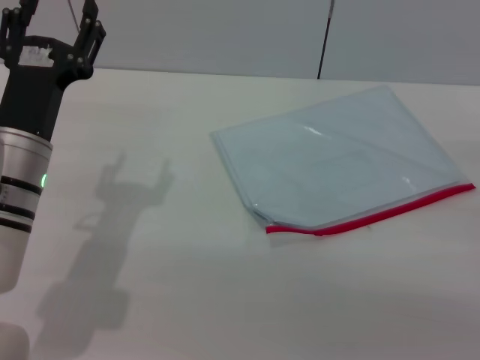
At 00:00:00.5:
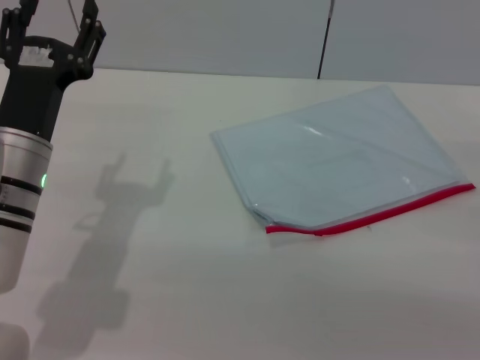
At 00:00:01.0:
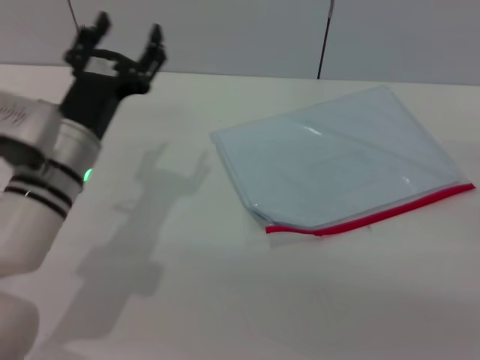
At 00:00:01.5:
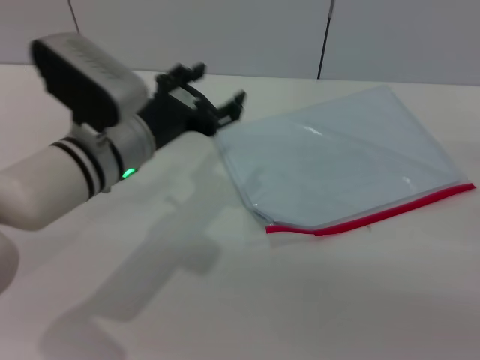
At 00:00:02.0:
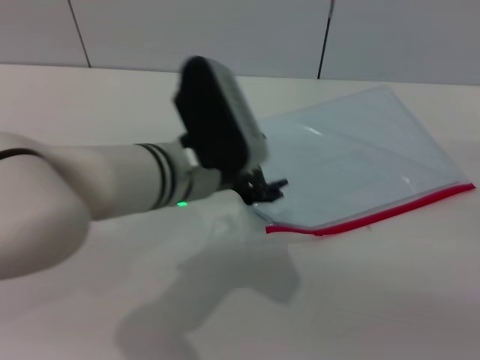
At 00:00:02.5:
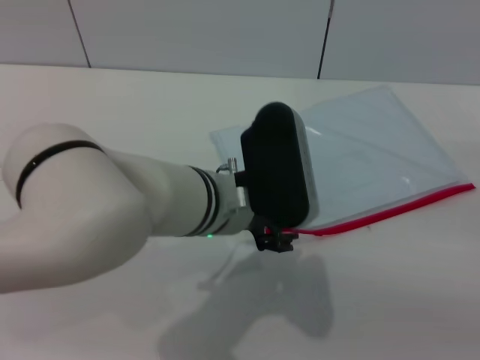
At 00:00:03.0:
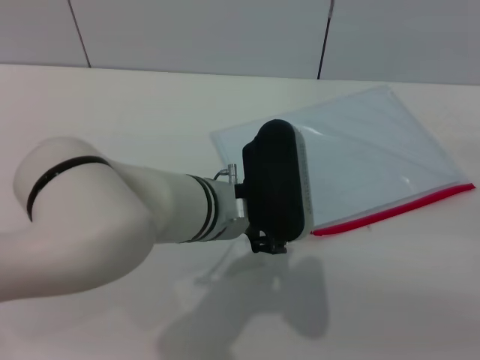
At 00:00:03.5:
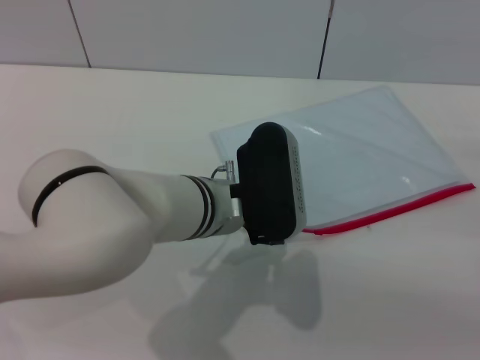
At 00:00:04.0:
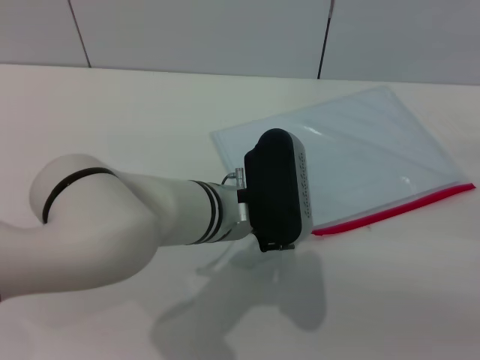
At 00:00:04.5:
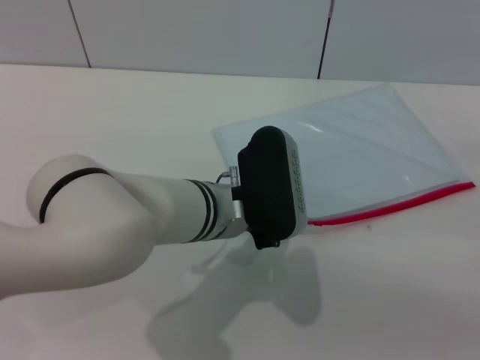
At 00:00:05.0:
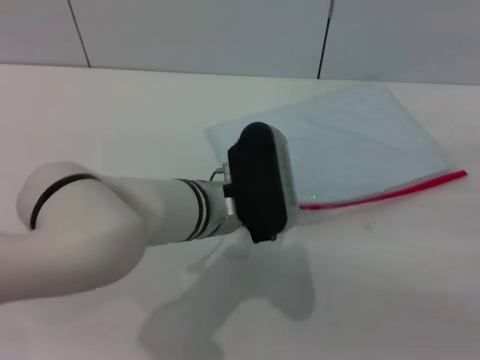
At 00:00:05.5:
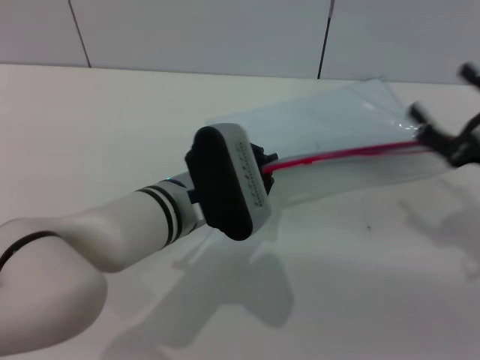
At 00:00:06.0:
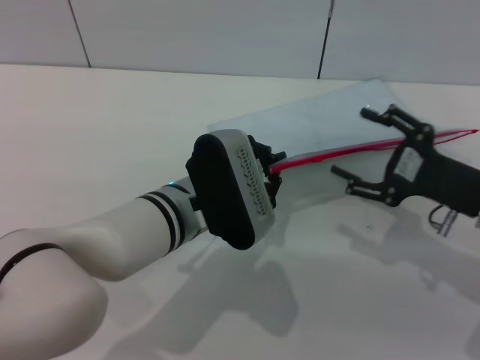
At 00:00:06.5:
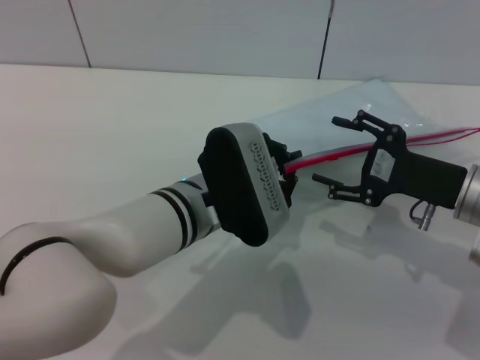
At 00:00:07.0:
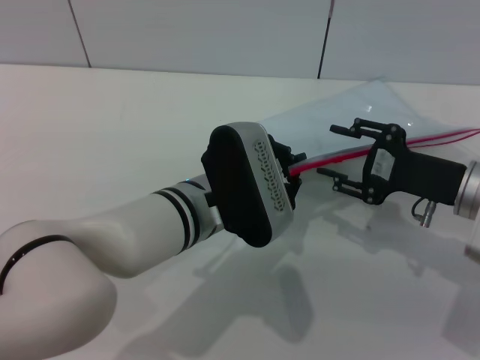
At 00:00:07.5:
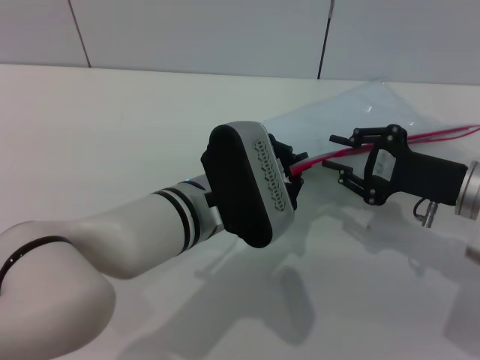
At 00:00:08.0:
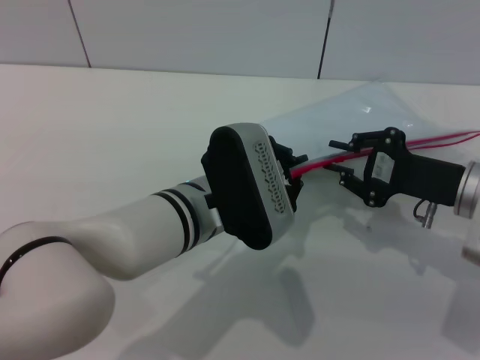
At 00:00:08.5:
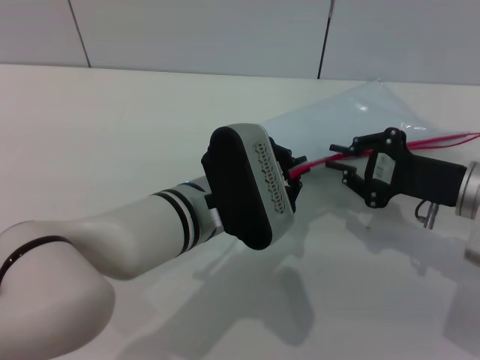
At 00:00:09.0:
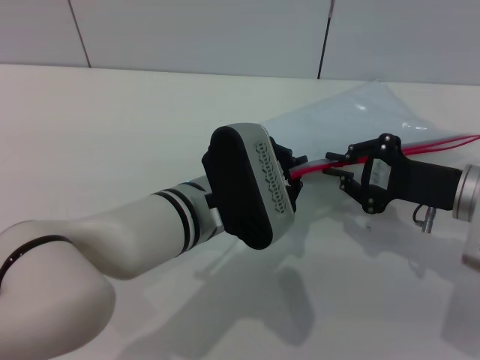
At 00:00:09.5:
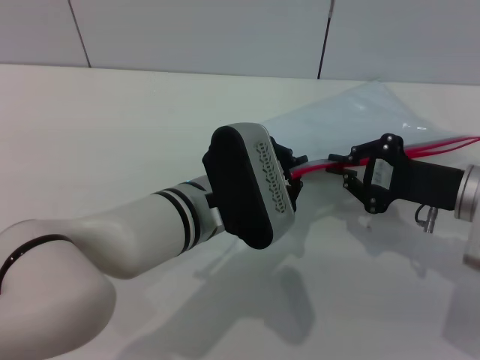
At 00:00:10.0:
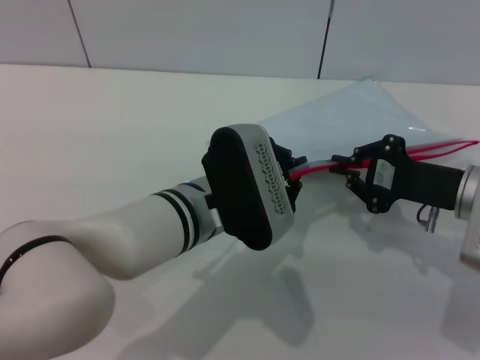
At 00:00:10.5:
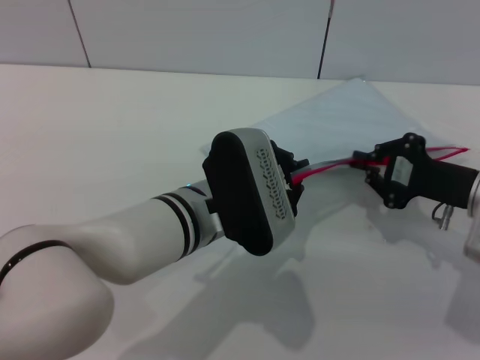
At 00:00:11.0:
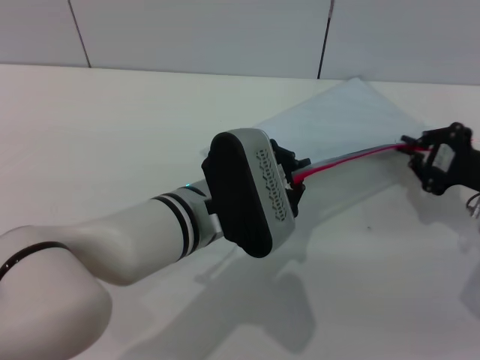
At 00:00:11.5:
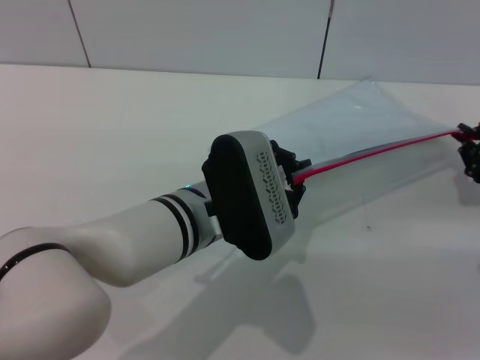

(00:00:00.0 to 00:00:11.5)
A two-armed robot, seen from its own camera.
Step, 00:00:00.0 - 00:00:06.0: Pick up the transparent plastic bag with the left gripper.
00:00:00.0 - 00:00:02.0: The left gripper travels to the right by approximately 15 cm.
00:00:02.0 - 00:00:04.0: The left gripper changes place by some 5 cm.
00:00:04.0 - 00:00:06.0: The left gripper closes up. The right gripper is displaced to the left by some 10 cm.
00:00:06.0 - 00:00:07.5: The right gripper closes.
00:00:07.5 - 00:00:09.5: The grippers make only small movements.
00:00:09.5 - 00:00:11.5: The right gripper heads to the right, covering roughly 10 cm.

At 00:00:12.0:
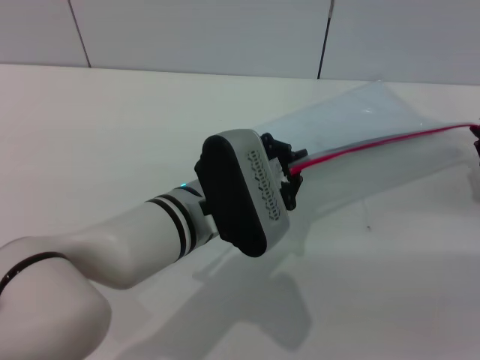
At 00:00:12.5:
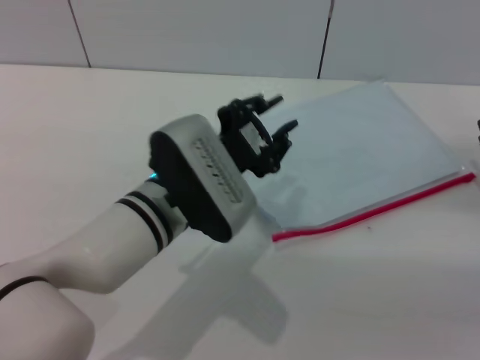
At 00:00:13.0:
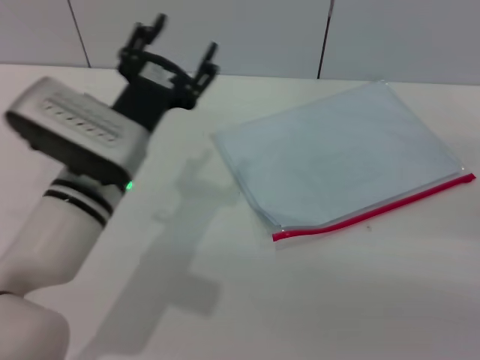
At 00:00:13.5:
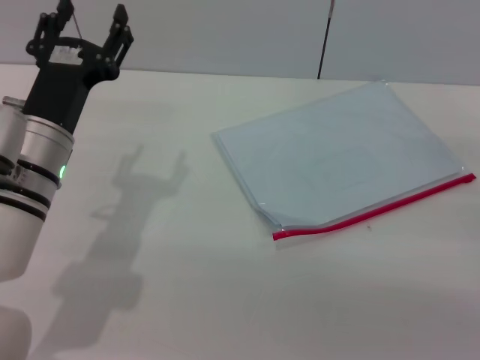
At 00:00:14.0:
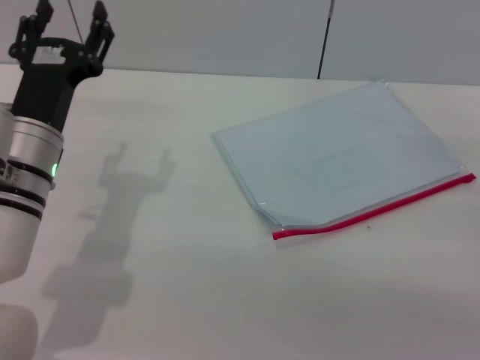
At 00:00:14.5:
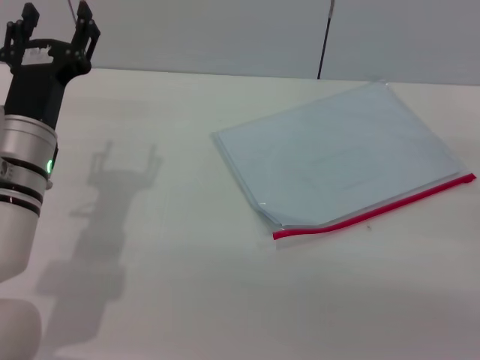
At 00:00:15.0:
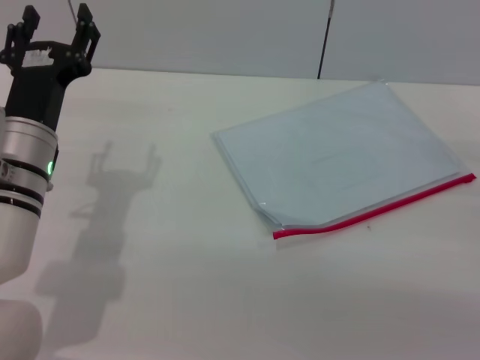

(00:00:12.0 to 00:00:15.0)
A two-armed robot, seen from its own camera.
Step, 00:00:12.5 - 00:00:13.0: Place the transparent plastic bag.
00:00:12.0 - 00:00:13.5: The left gripper goes approximately 15 cm to the left, and opens its fingers, while the right gripper heads backward, covering some 5 cm, and opens its fingers.
00:00:13.5 - 00:00:15.0: The grippers move only a little.

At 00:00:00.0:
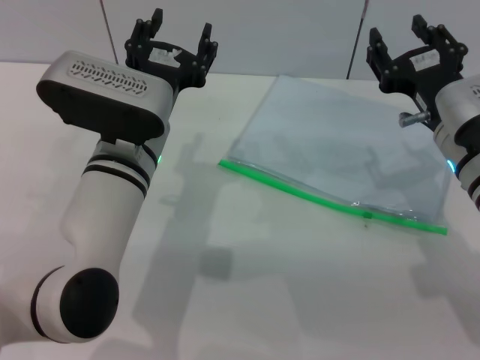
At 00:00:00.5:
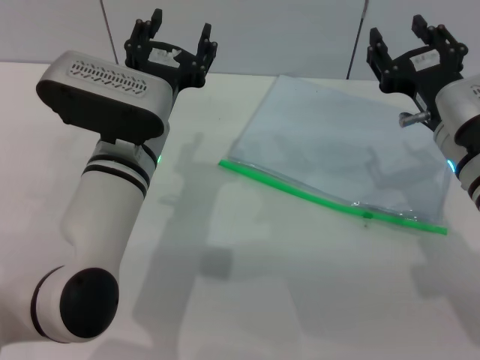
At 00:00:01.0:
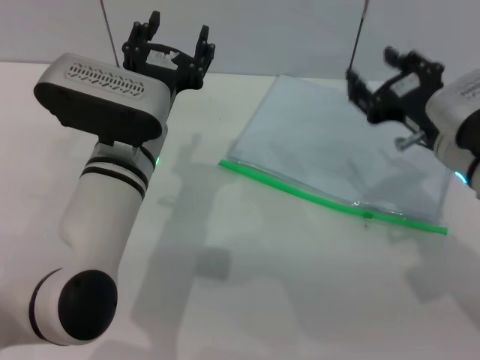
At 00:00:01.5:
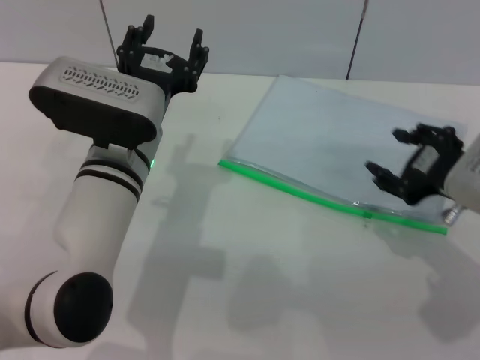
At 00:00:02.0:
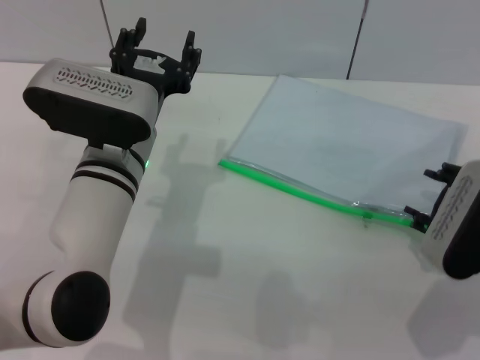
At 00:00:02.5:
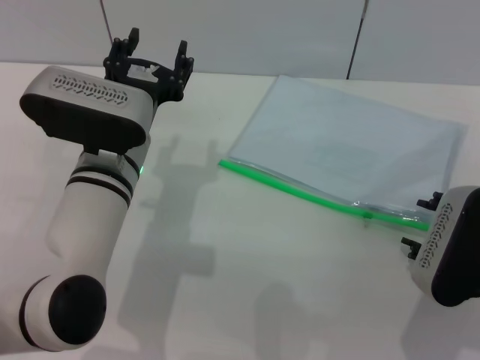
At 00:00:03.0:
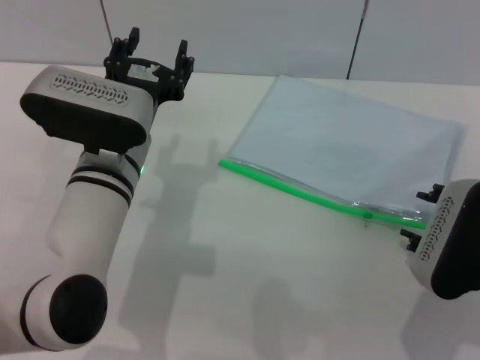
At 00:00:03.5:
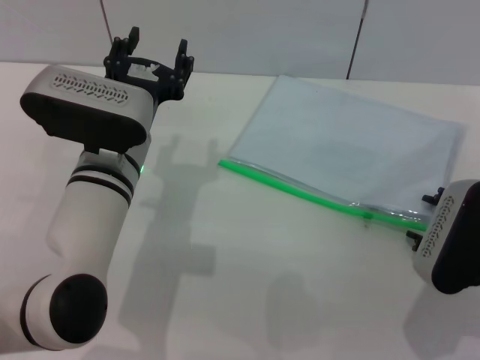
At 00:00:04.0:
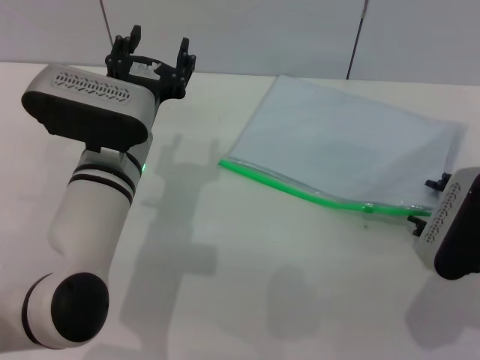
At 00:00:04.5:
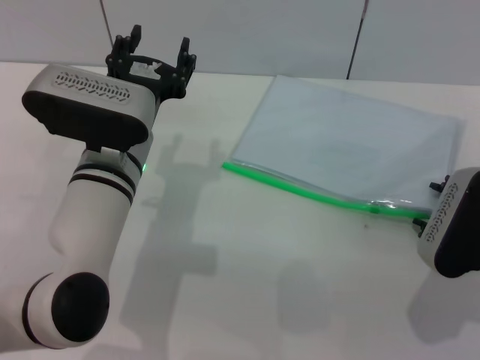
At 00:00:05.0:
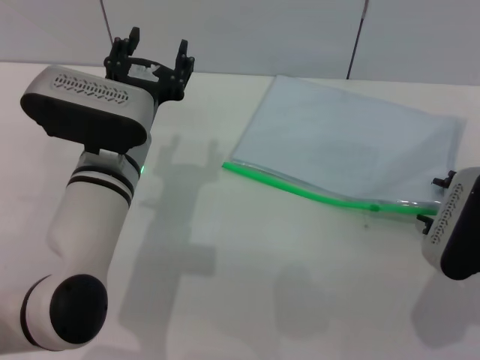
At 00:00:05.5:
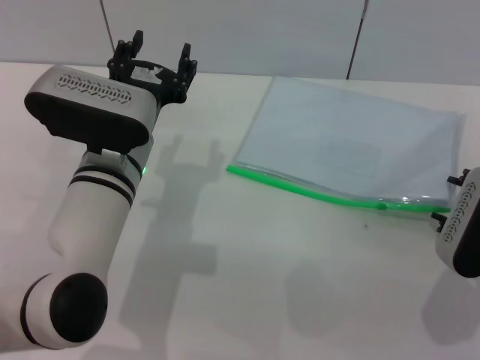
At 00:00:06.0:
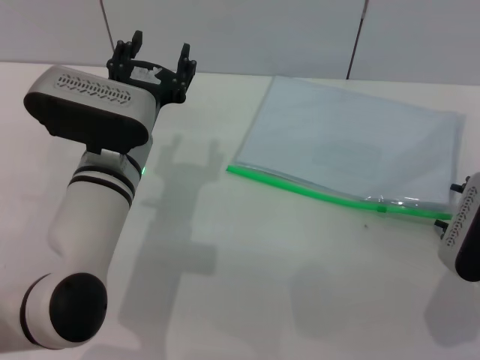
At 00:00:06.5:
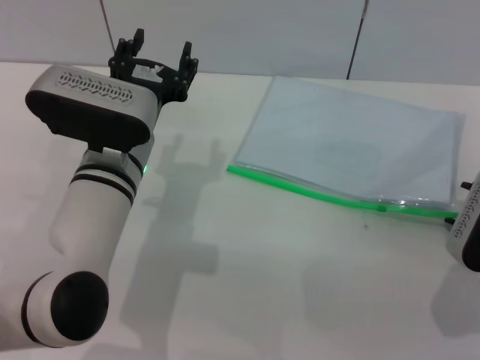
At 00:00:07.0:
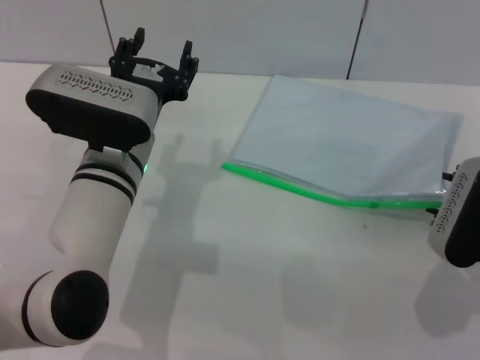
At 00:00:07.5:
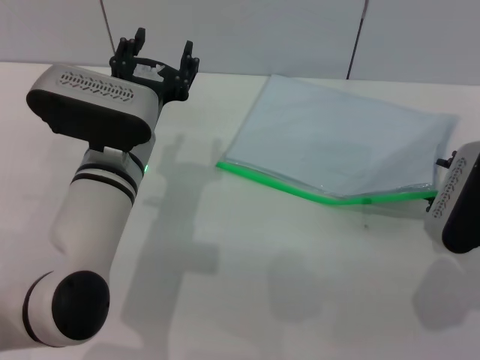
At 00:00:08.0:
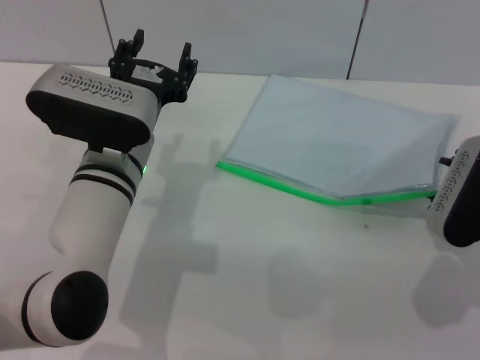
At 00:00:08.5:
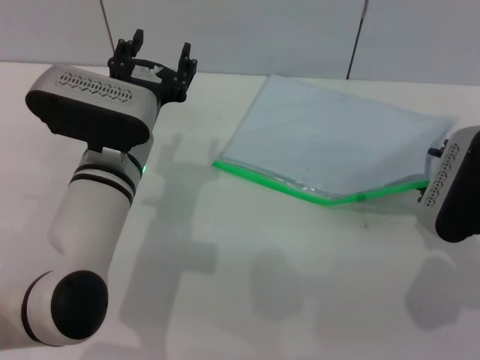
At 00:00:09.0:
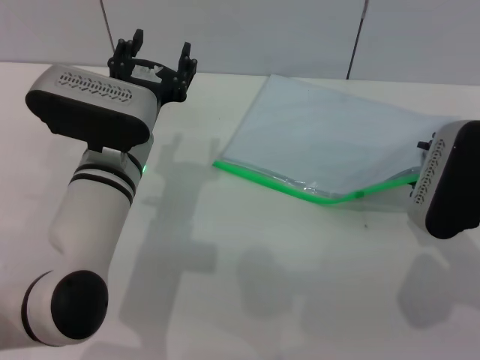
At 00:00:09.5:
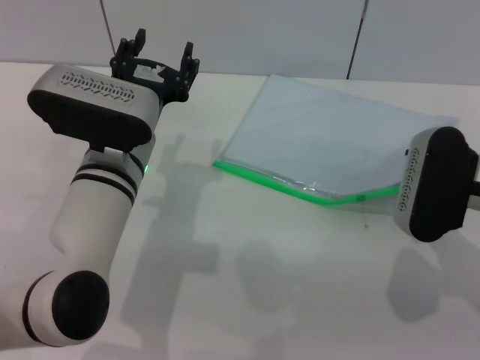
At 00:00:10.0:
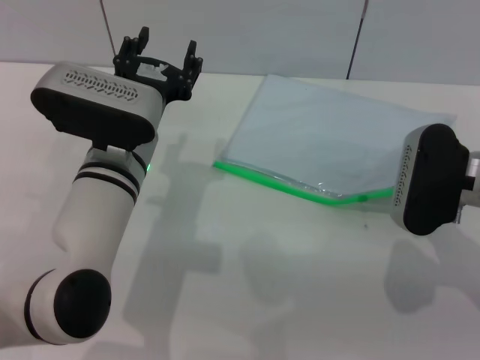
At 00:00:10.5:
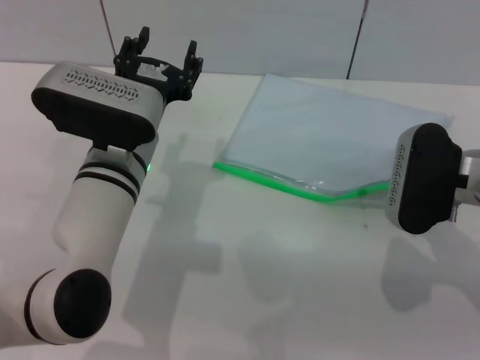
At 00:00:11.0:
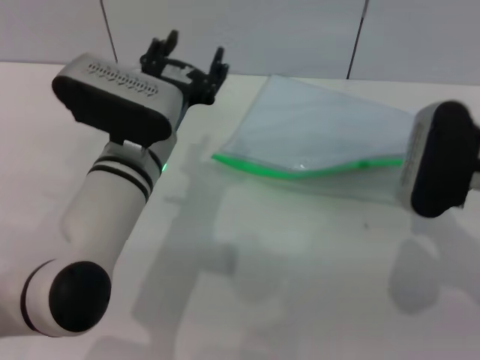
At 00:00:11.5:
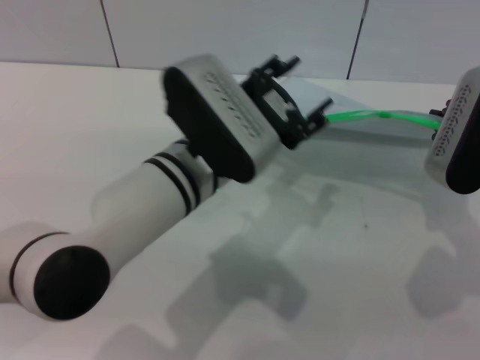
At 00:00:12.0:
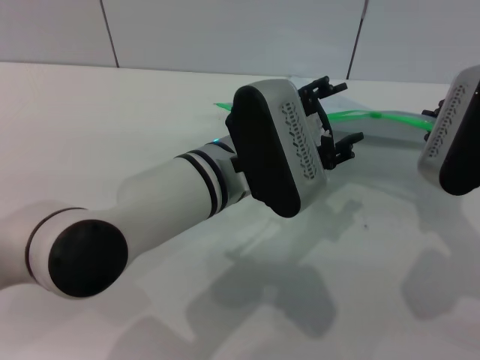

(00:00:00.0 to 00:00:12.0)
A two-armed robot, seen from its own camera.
Step, 00:00:00.0 - 00:00:11.0: Pick up the transparent plastic bag with the right gripper.
00:00:00.0 - 00:00:02.0: The right gripper is displaced backward by about 5 cm.
00:00:02.0 - 00:00:08.0: The grippers move only a little.
00:00:08.0 - 00:00:10.0: The grippers make only small movements.
00:00:10.0 - 00:00:12.0: The right gripper is displaced upward by roughly 5 cm, and closes up; the left gripper is displaced to the right by about 10 cm.
